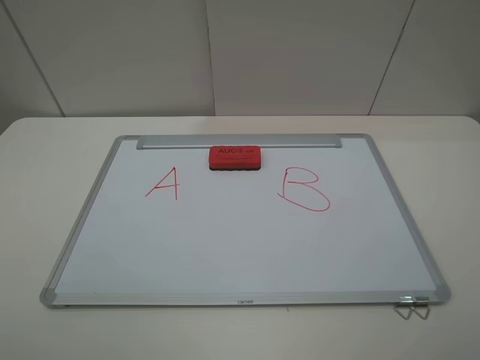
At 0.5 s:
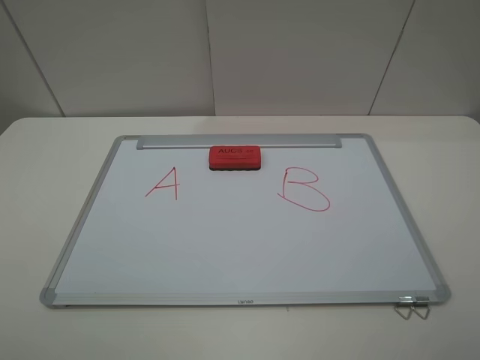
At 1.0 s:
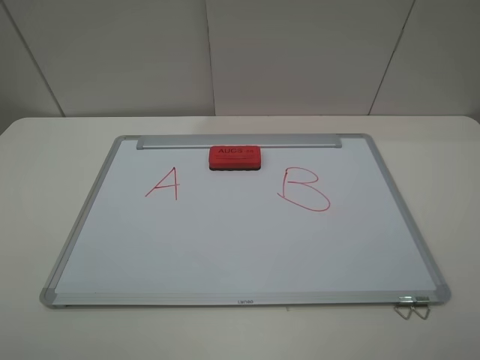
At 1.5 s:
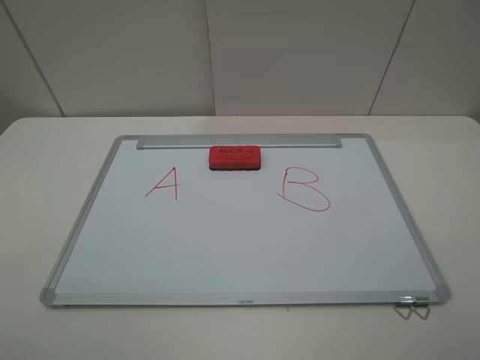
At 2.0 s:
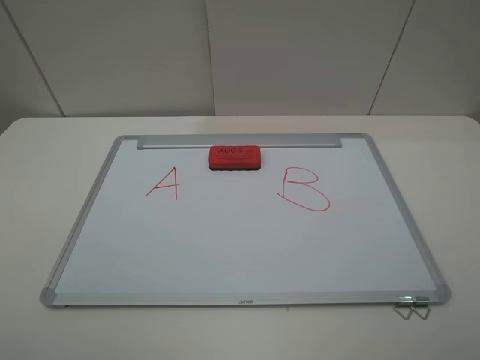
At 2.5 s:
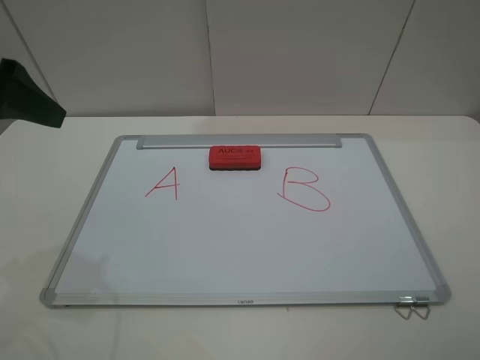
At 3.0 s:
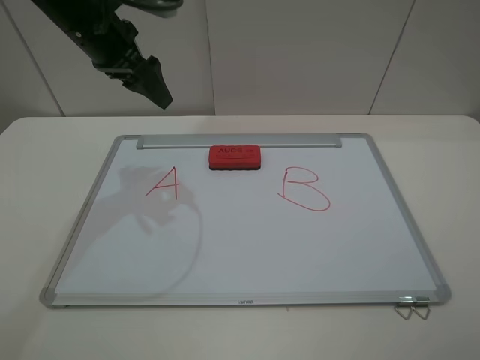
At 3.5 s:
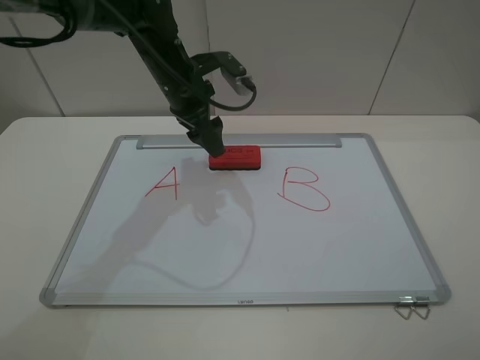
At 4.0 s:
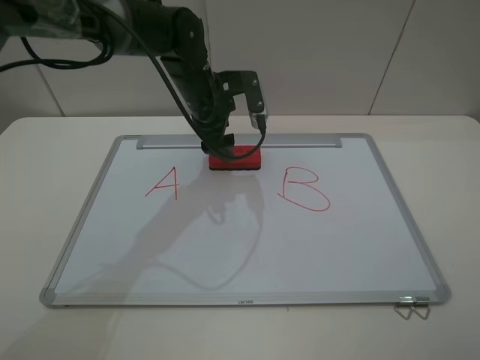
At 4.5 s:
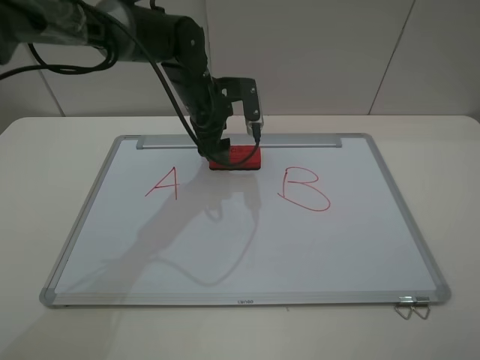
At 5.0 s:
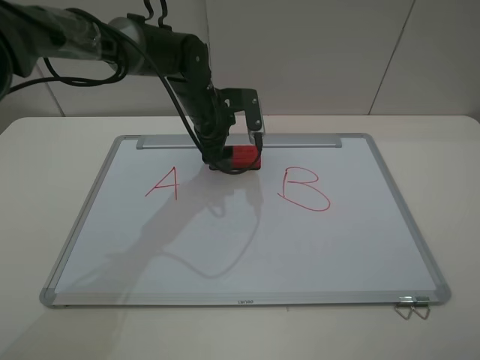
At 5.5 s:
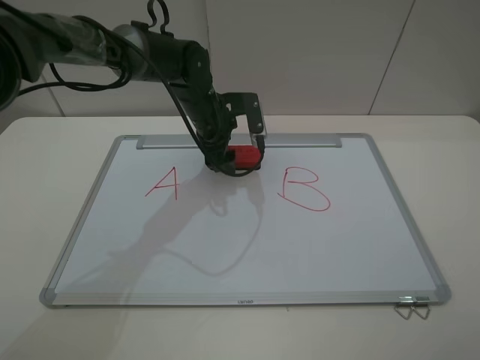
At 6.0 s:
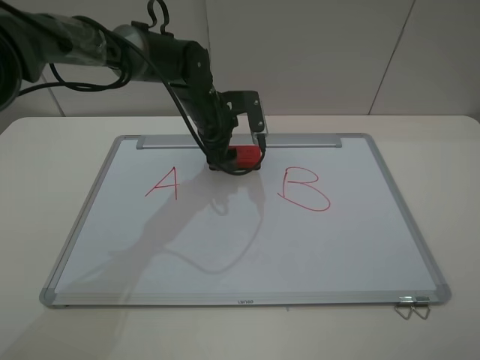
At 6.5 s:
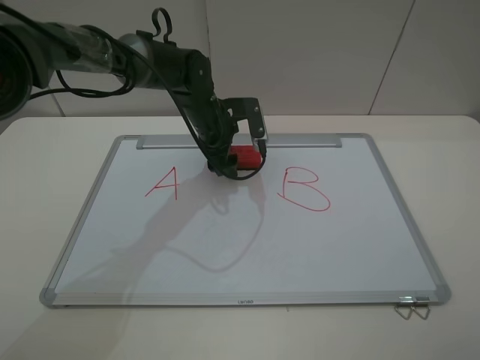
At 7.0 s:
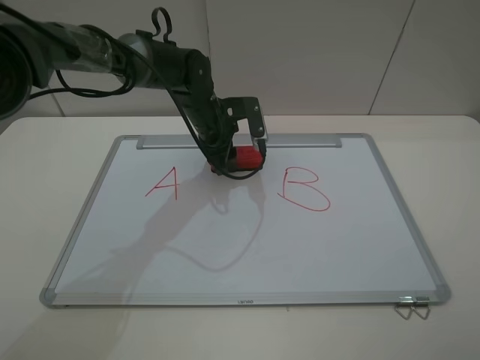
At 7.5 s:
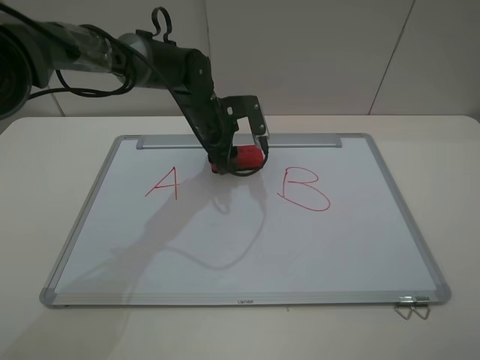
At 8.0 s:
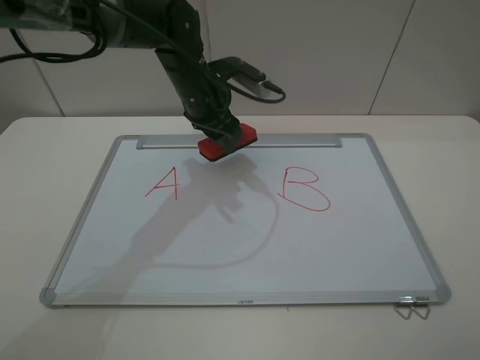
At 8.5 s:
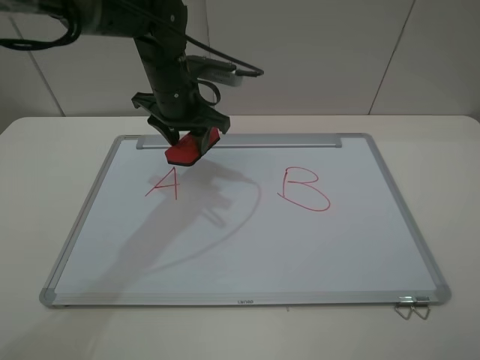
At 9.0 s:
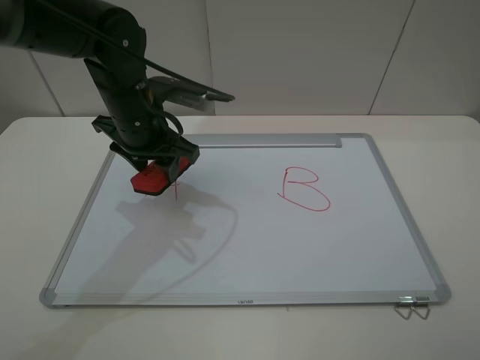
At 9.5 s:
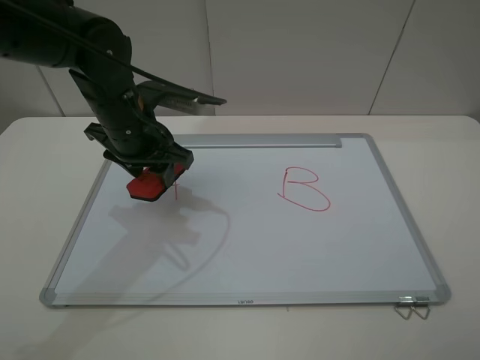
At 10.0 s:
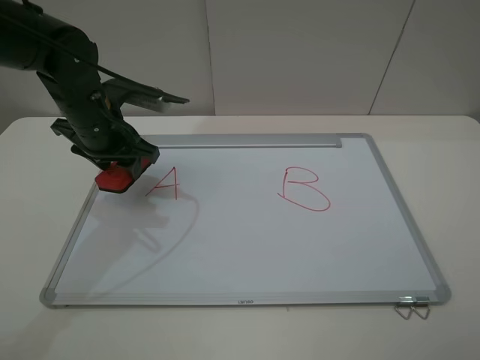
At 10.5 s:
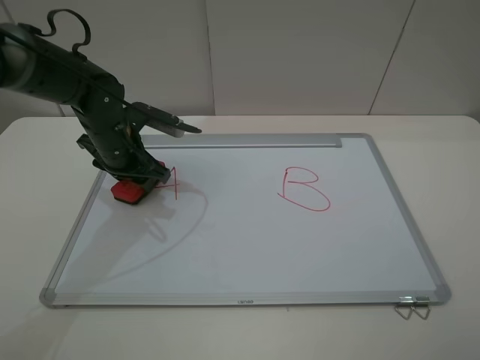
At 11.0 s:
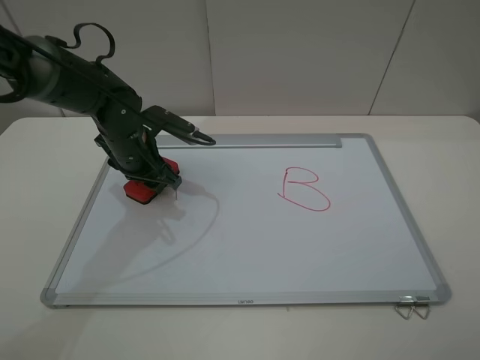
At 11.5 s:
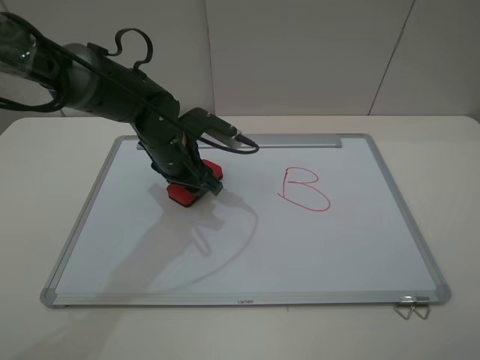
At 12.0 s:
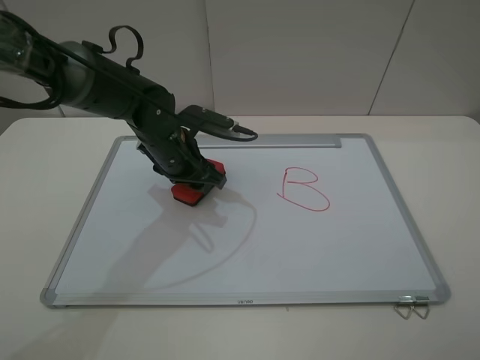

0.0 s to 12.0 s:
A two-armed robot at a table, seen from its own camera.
Step, 0.0 to 7.0 s: Grasp the eraser with the left gripper.
2.0 to 4.0 s: The left gripper is displaced forward and to the right by some 50 cm.
4.0 to 6.0 s: The grippers move only a little.
6.0 to 8.0 s: The left gripper shifts about 5 cm upward, and closes up.
8.0 to 10.0 s: The left gripper moves to the left and backward, some 15 cm.
10.0 to 12.0 s: The left gripper shifts about 10 cm to the right and downward.

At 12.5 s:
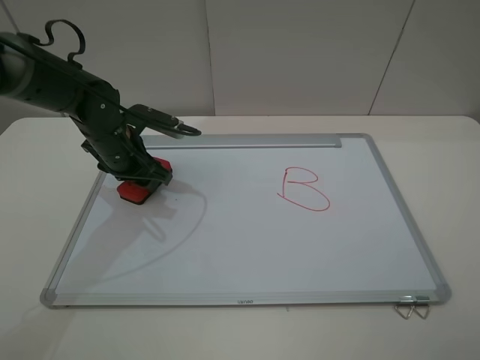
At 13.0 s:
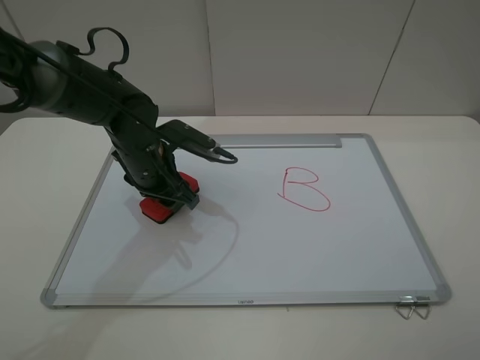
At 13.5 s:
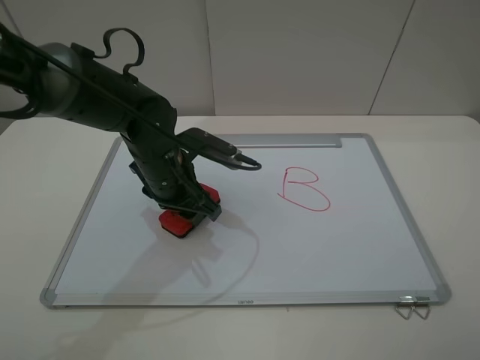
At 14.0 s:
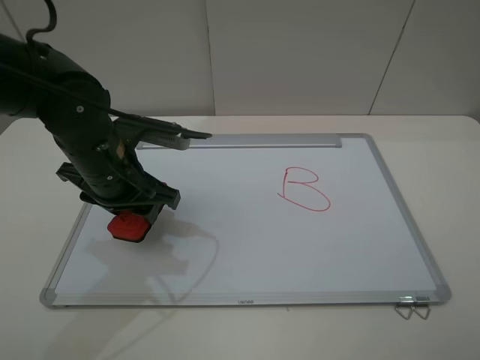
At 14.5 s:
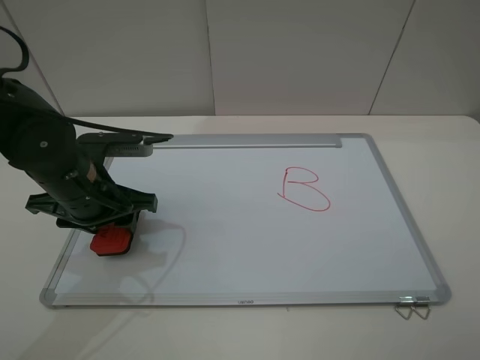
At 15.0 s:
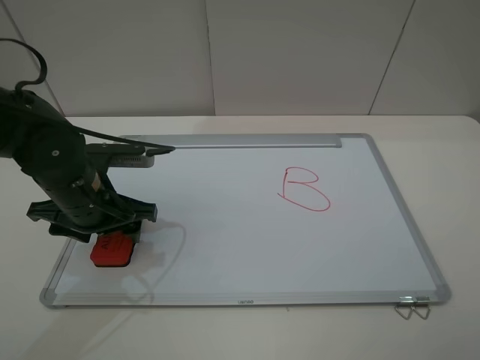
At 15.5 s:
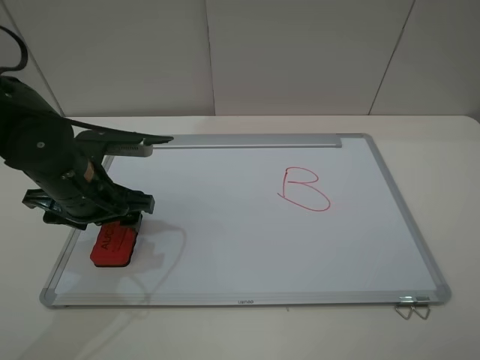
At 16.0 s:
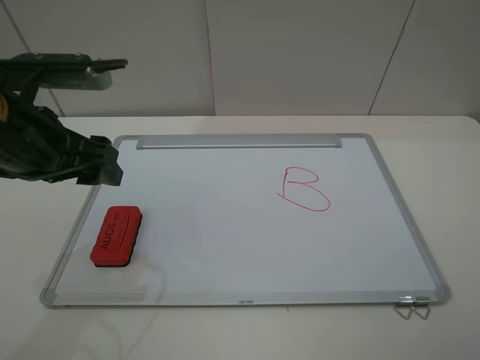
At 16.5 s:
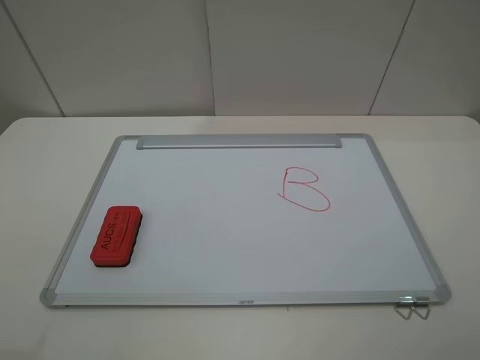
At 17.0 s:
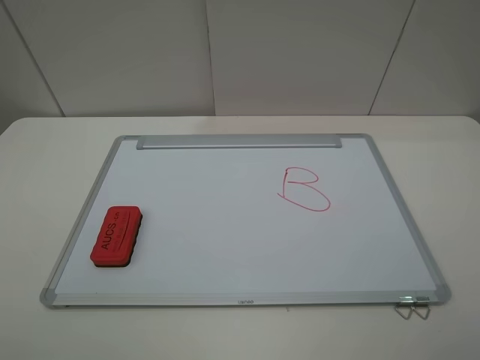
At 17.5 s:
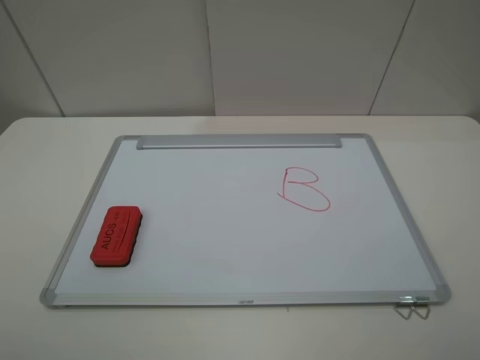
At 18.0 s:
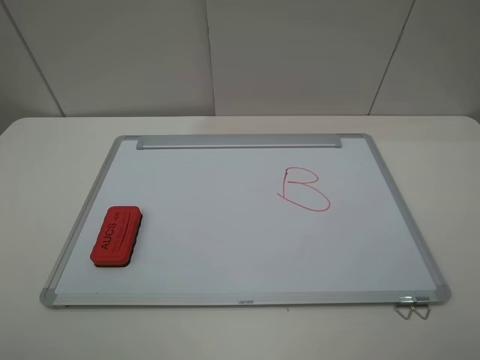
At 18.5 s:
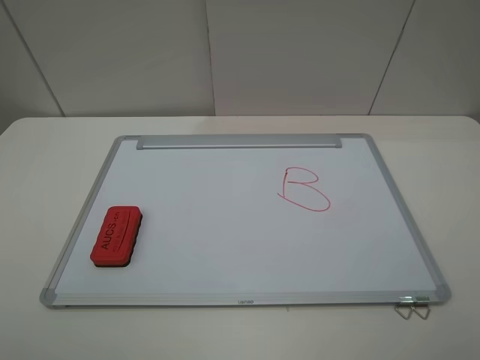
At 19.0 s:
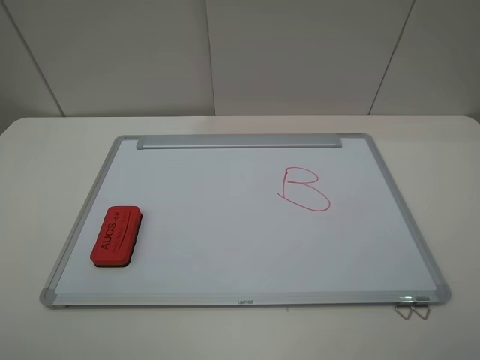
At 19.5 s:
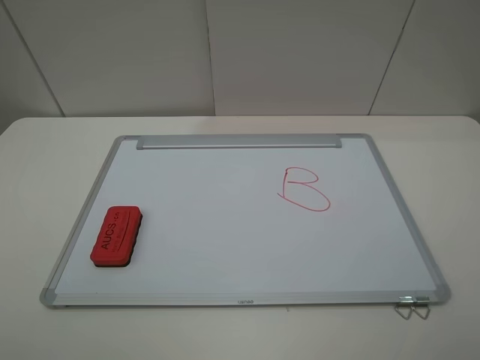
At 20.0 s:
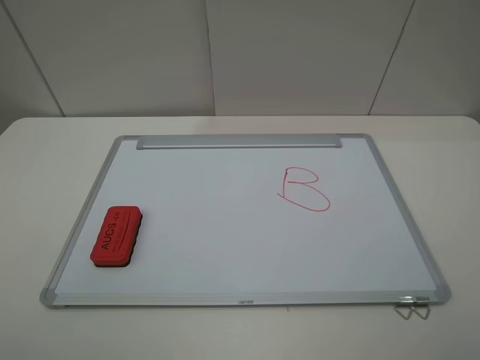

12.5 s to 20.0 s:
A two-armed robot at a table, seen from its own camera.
Step, 14.0 to 15.5 s: Place the eraser with the left gripper.
12.5 to 14.5 s: The left gripper moves backward, some 10 cm.
14.5 to 16.5 s: The left gripper is displaced upward, backward and to the left by roughly 25 cm, and opens.

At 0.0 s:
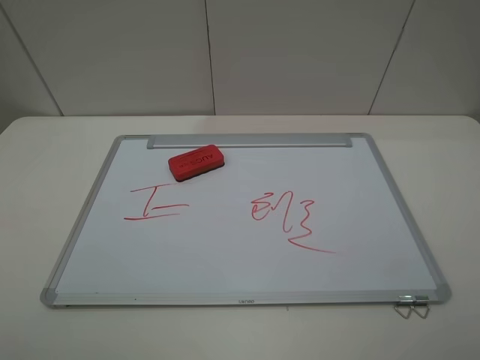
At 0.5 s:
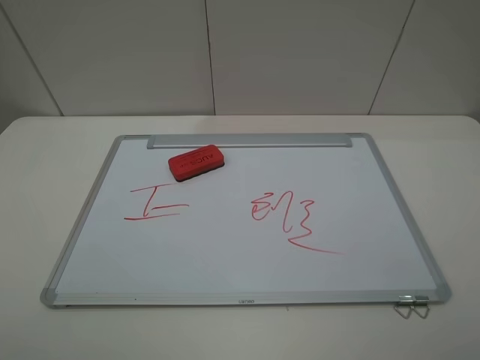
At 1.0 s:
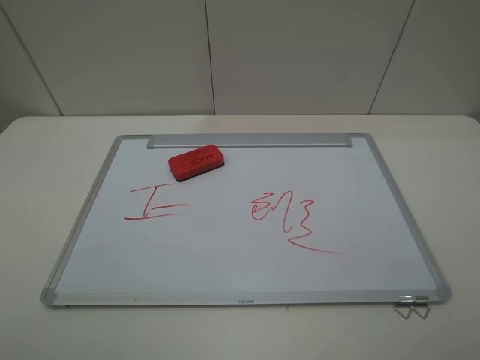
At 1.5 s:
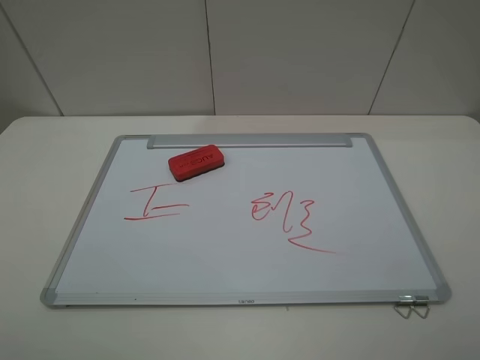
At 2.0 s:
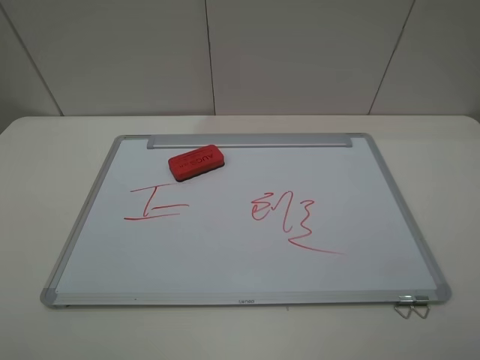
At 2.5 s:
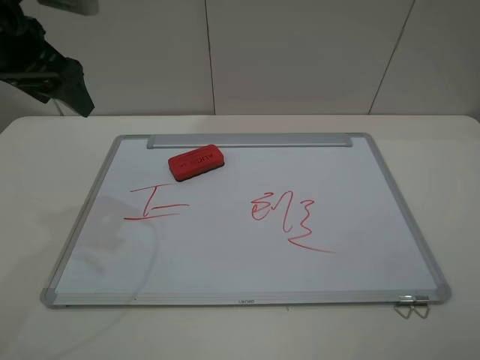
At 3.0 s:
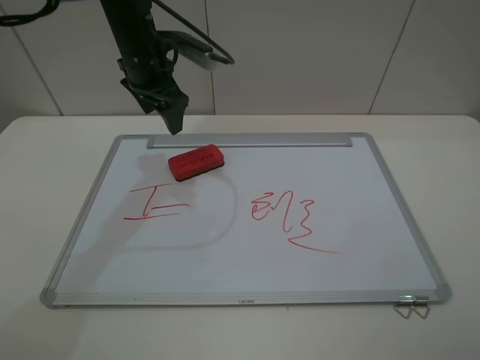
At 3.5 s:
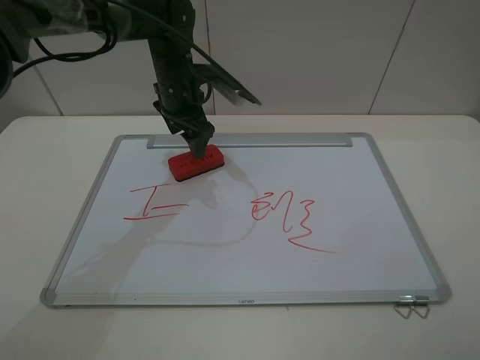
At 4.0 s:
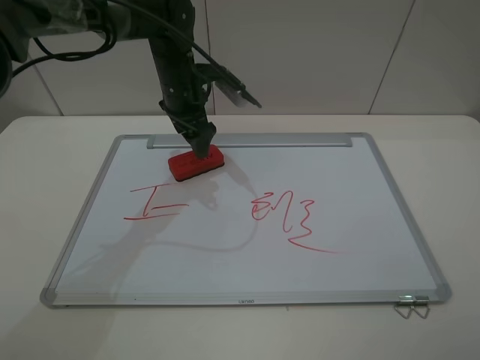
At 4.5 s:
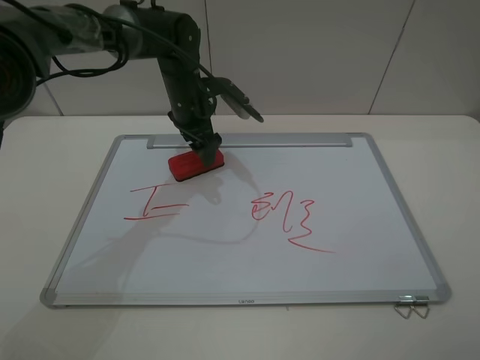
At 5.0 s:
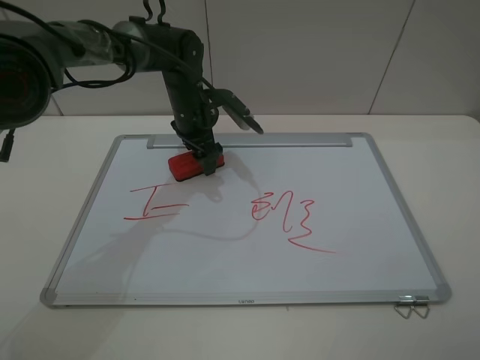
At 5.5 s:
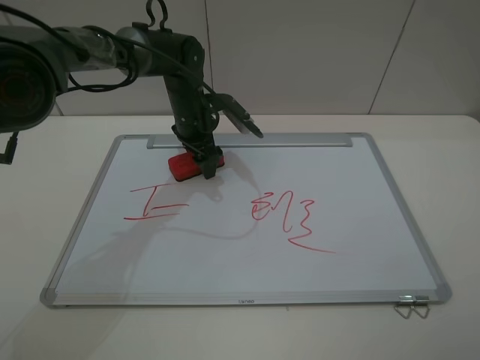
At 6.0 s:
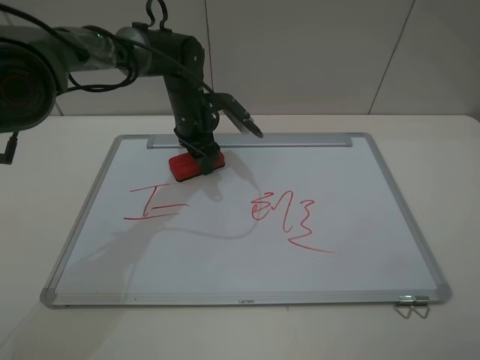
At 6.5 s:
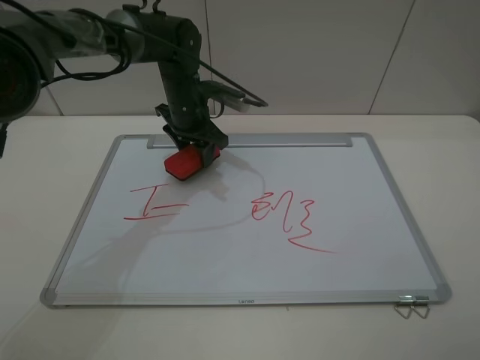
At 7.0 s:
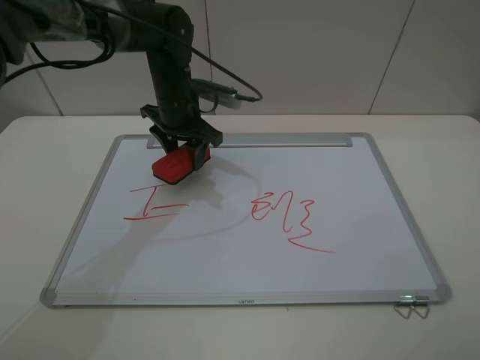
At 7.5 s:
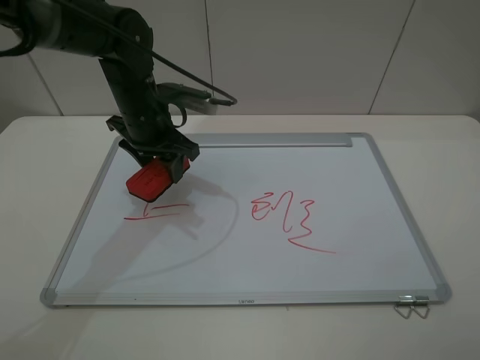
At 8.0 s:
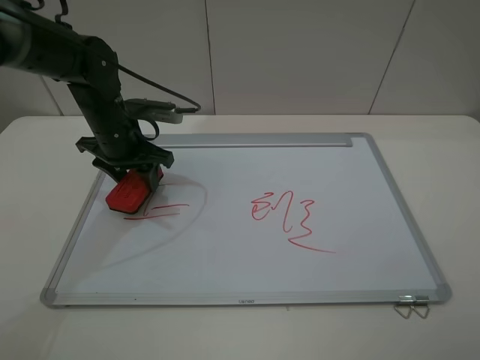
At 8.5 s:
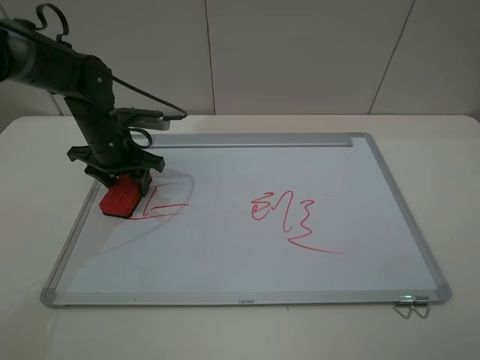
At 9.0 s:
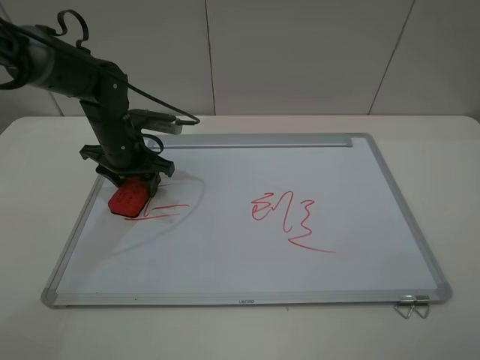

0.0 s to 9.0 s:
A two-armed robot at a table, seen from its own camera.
Step, 0.0 to 6.0 s: Grasp the eraser with the left gripper.
2.0 to 4.5 s: The left gripper moves forward, to the right and downward, roughly 50 cm, and opens up.
4.5 to 7.0 s: The left gripper closes up.
7.0 to 9.0 s: The left gripper is displaced to the left and downward by some 10 cm.
